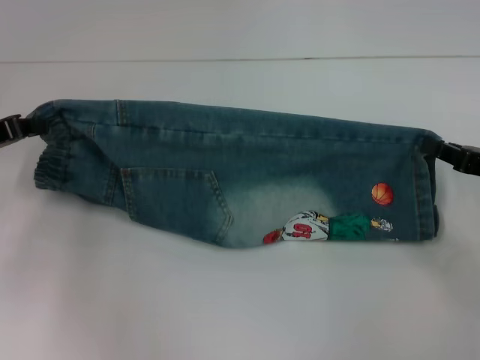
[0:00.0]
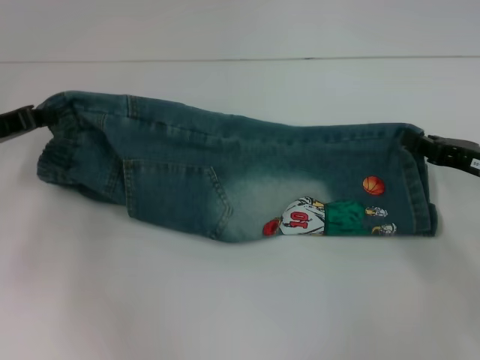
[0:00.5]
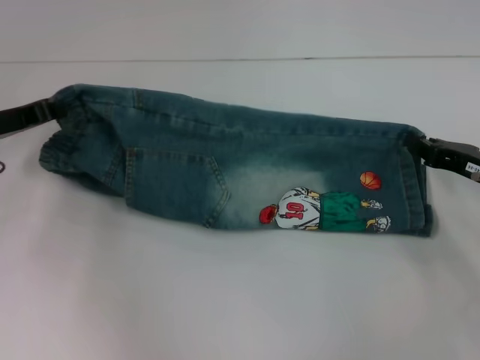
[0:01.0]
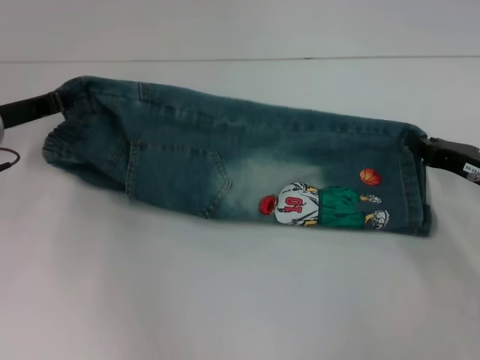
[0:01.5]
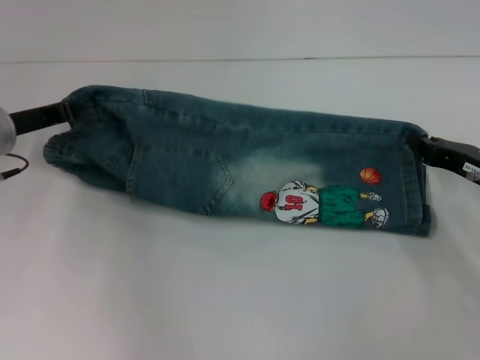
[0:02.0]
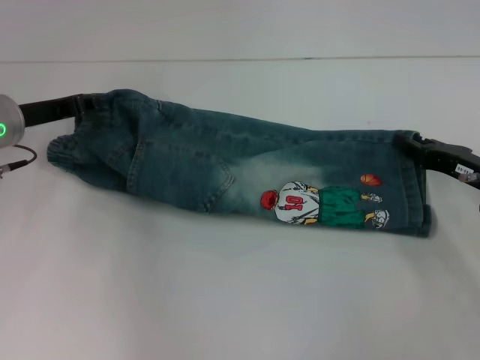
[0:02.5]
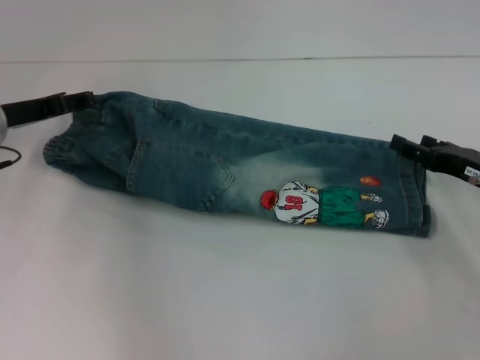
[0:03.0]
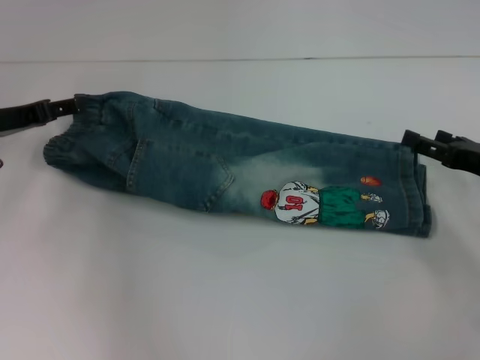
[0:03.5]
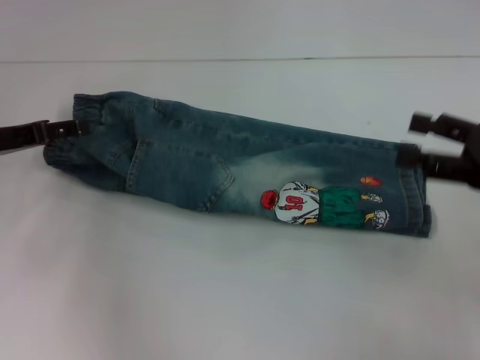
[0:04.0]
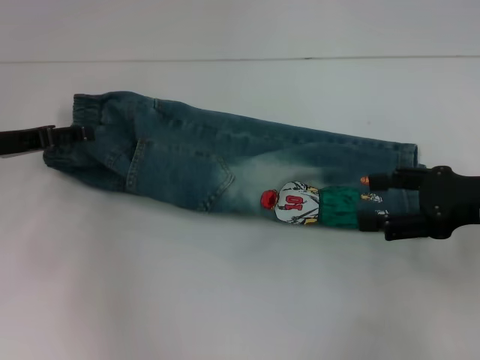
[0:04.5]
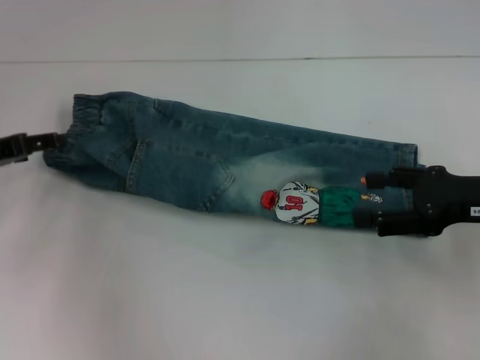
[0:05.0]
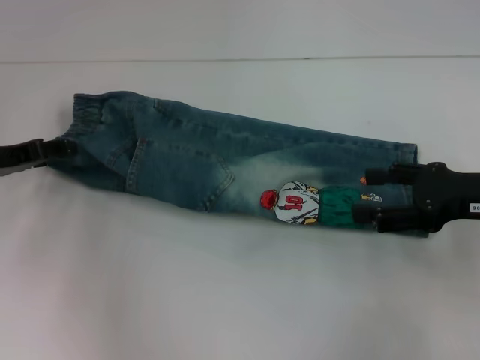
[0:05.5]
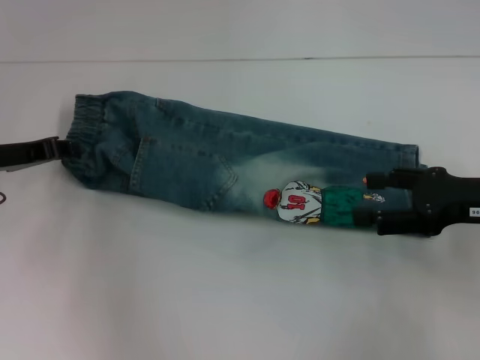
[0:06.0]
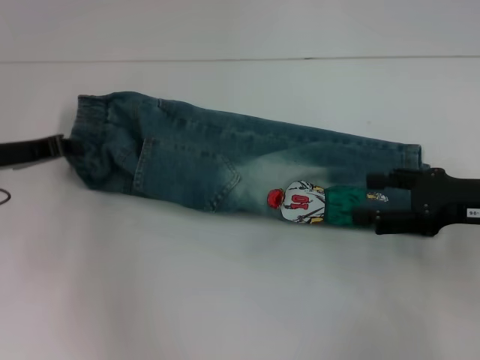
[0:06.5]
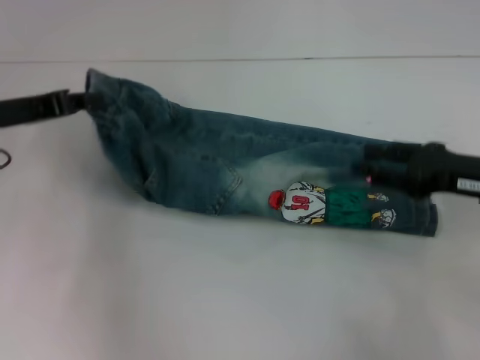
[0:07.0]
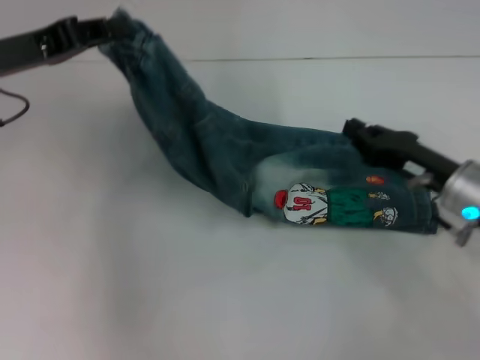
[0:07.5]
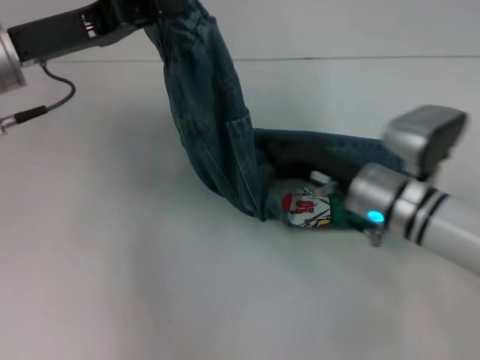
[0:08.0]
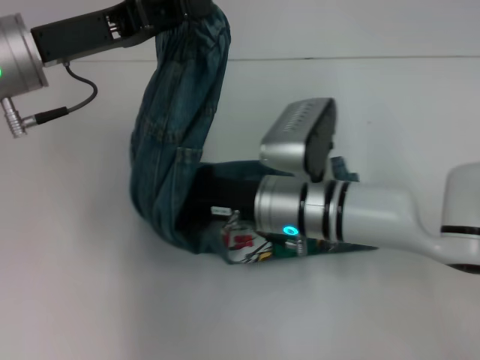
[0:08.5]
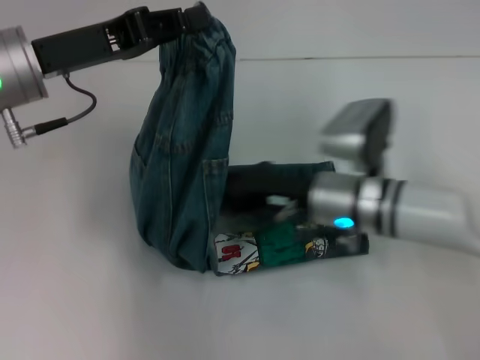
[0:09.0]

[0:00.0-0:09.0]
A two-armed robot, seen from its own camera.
Step, 0:00.0 to 0:03.0: Fold upward with your right hand.
Step, 0:03.5 to 0:06.0: Hold the waistband with your left hand.
Step, 0:07.0 to 0:09.0: Press the middle of the pants with your right hand.
0:00.0 to 0:02.0: The left gripper moves to the right, about 5 cm.
0:02.0 to 0:04.5: The right gripper goes some 10 cm upward, and opens its fingers. Meanwhile the left gripper opens up.
0:04.5 to 0:07.0: The left gripper closes its fingers.
0:07.0 to 0:09.0: The left gripper shifts some 10 cm to the right. Meanwhile the right gripper moves to the left, roughly 15 cm, and closes its fingers.

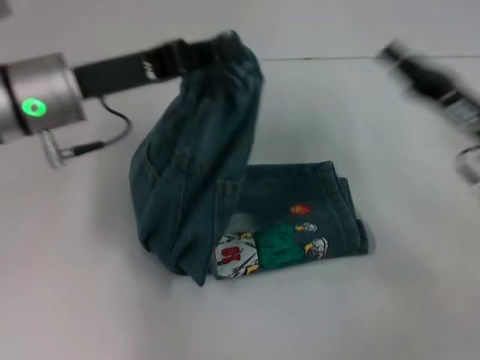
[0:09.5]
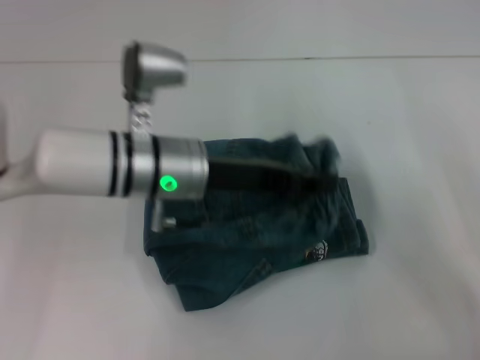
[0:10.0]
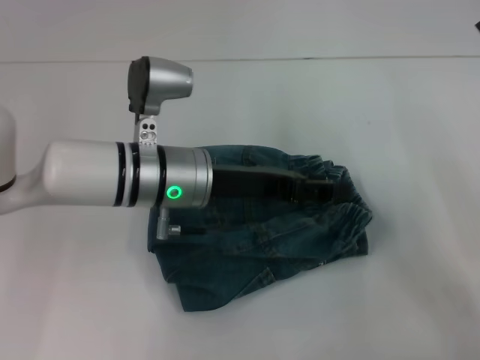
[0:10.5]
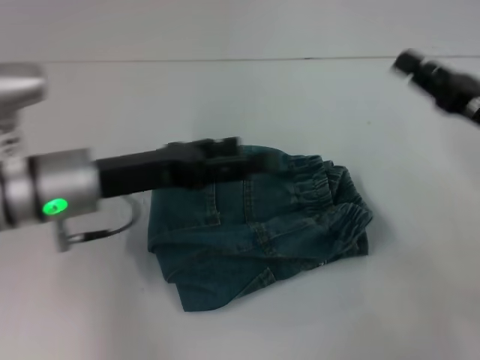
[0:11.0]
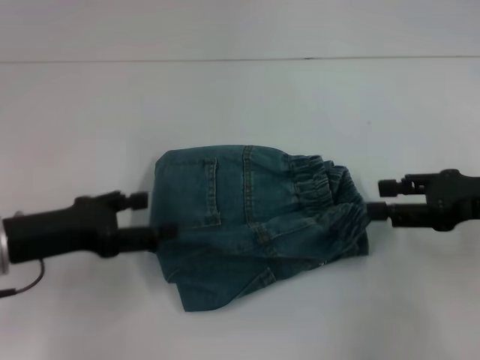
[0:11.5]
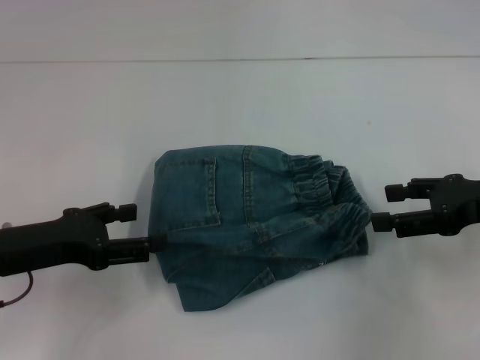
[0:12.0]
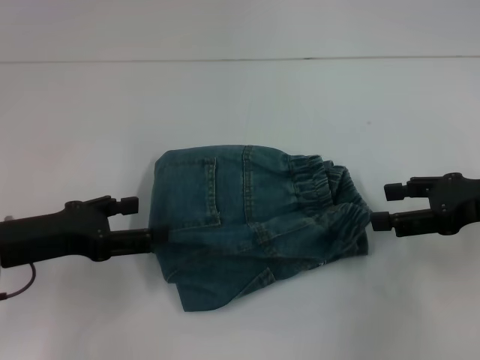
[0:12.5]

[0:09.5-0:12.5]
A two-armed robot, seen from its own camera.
Step, 0:09.5 to 0:10.5: Fold to the right with your left hand.
0:09.5 to 0:11.0: The left gripper moves downward, roughly 5 cm, goes to the right and returns, some 10 cm each way, and opens.
0:11.0 to 0:12.5: The right gripper opens up; the left gripper heads to the left and backward, covering approximately 10 cm.
